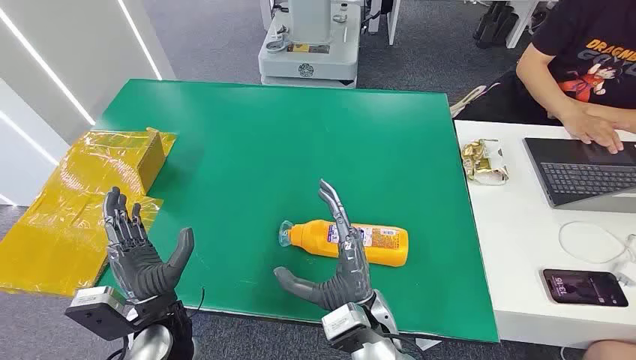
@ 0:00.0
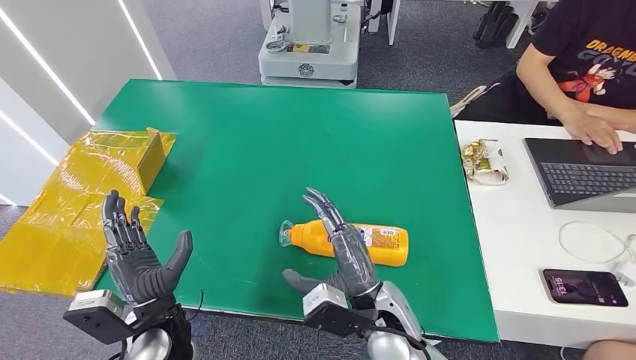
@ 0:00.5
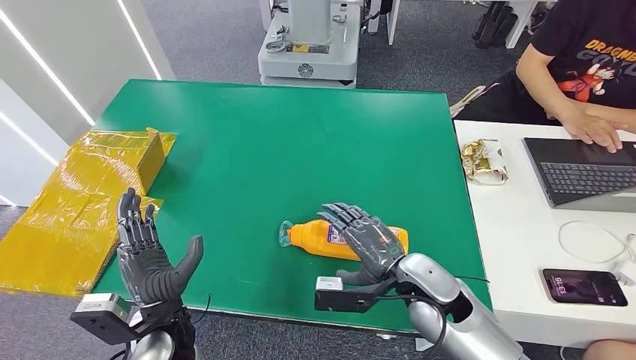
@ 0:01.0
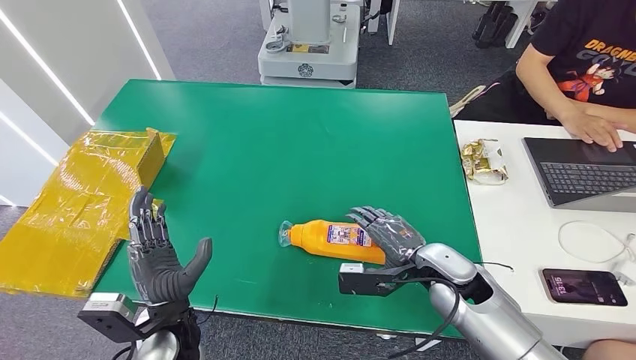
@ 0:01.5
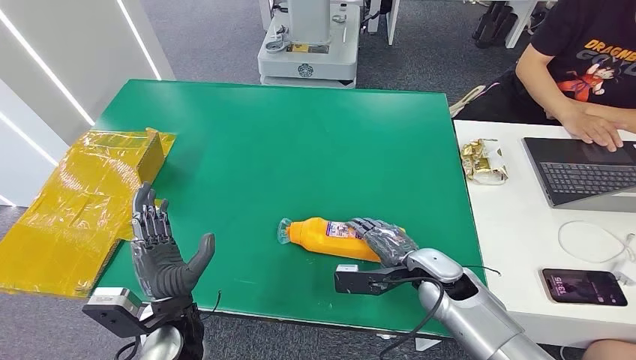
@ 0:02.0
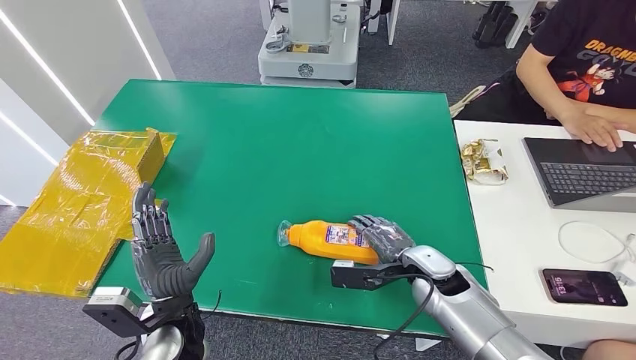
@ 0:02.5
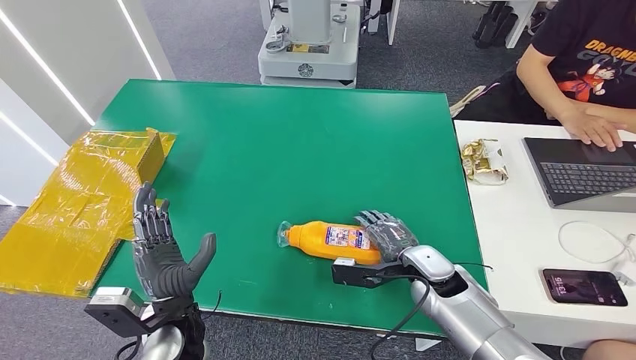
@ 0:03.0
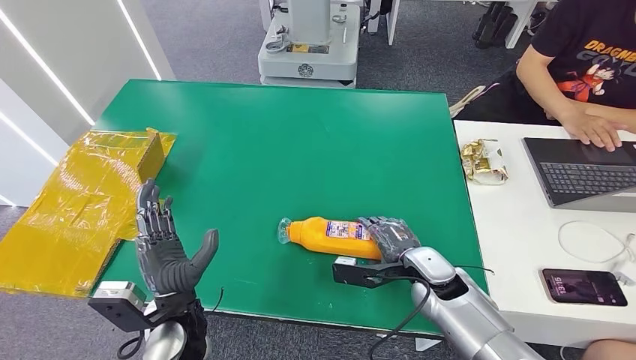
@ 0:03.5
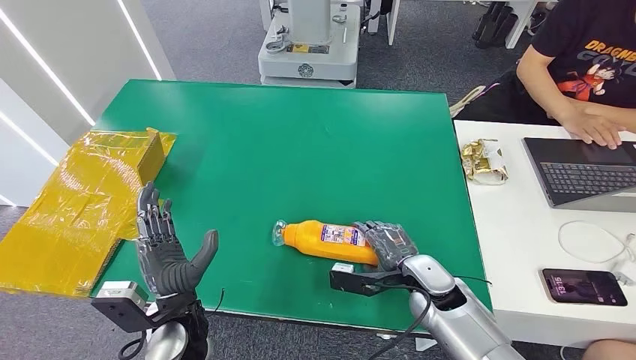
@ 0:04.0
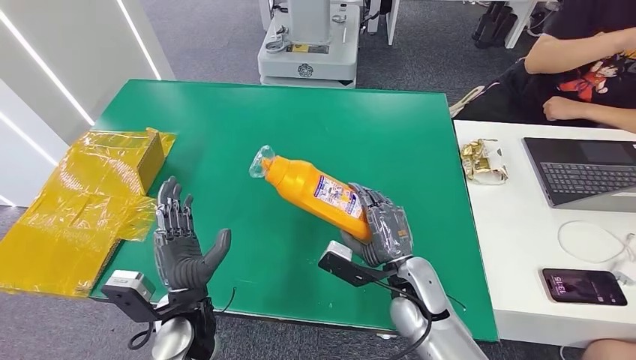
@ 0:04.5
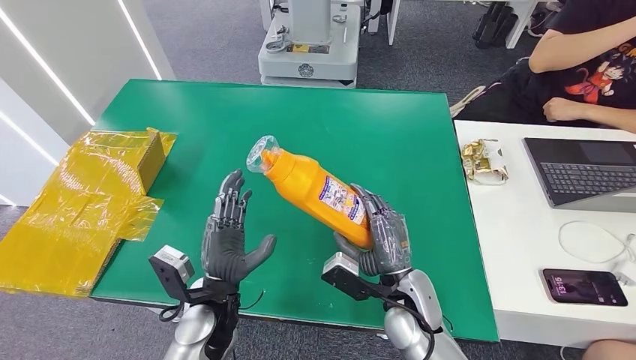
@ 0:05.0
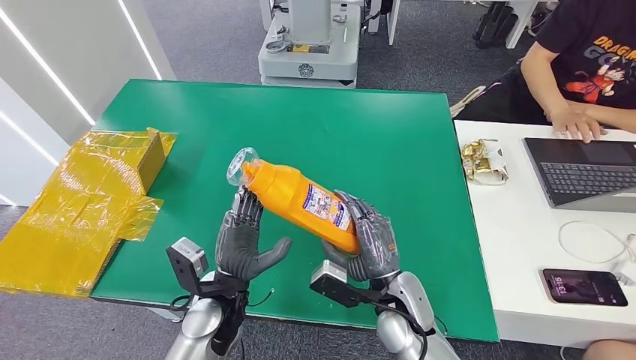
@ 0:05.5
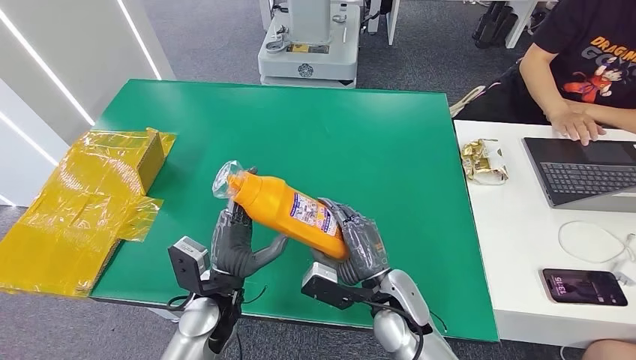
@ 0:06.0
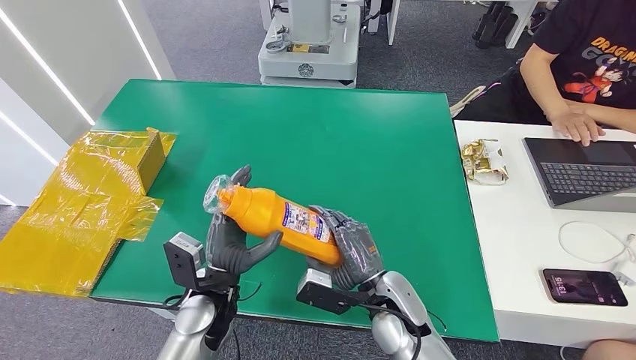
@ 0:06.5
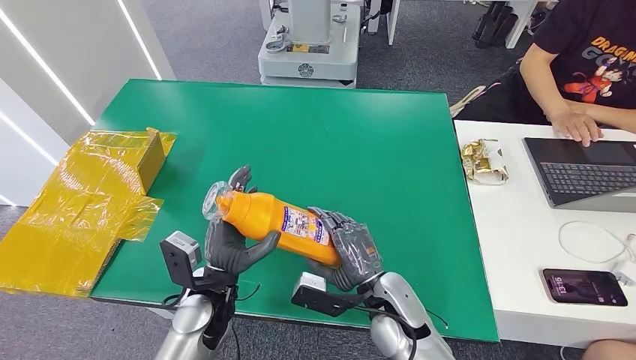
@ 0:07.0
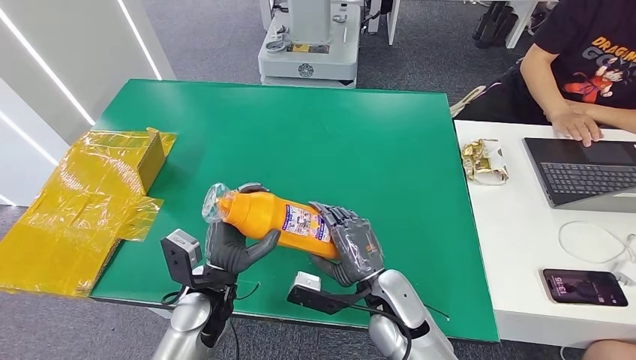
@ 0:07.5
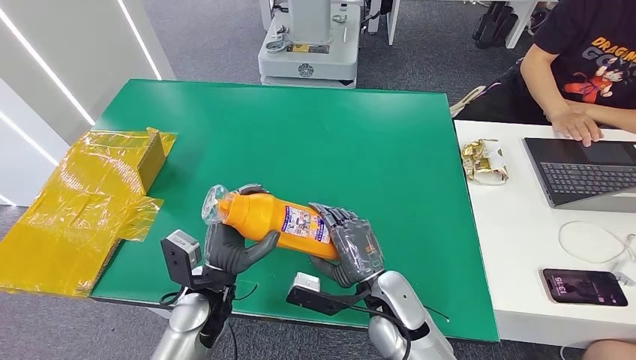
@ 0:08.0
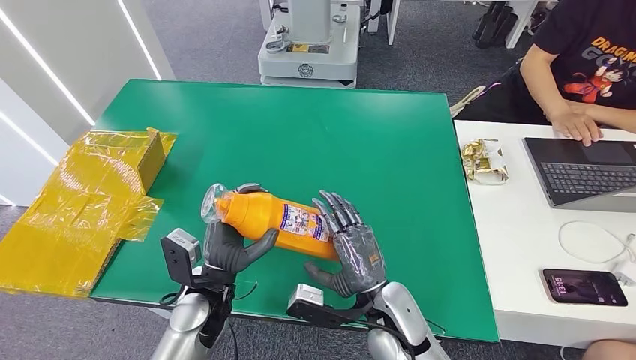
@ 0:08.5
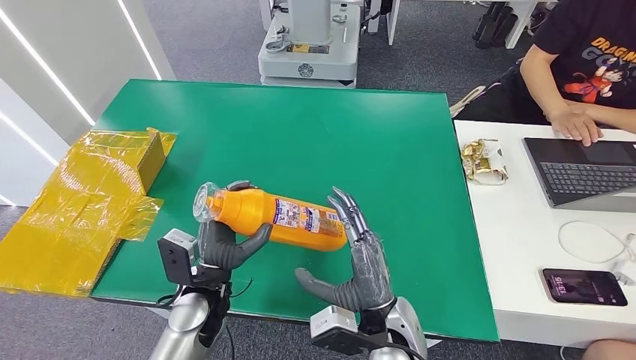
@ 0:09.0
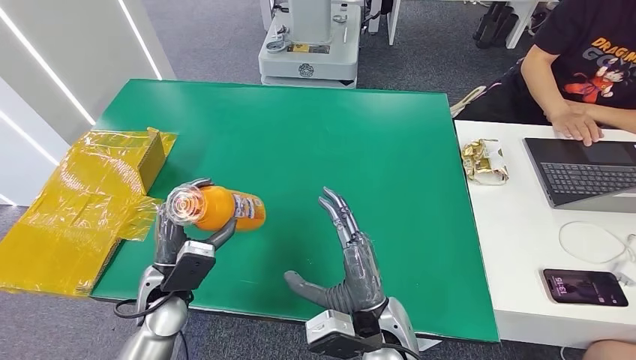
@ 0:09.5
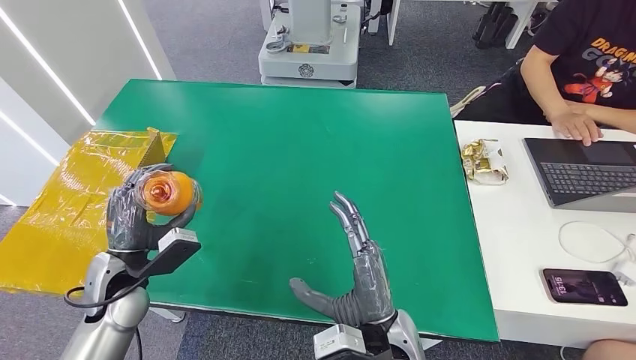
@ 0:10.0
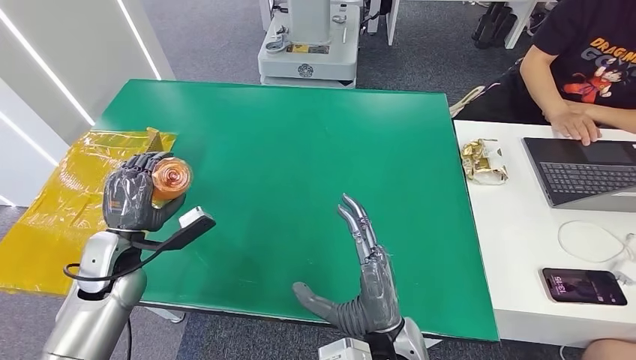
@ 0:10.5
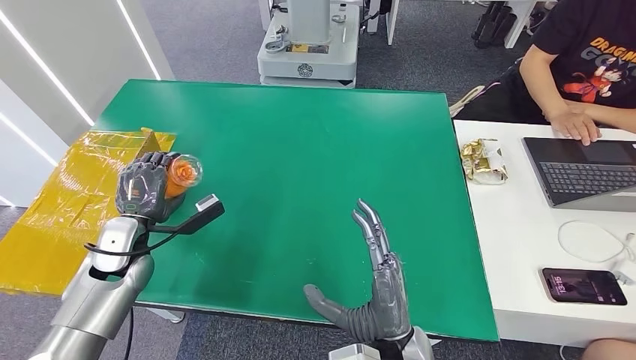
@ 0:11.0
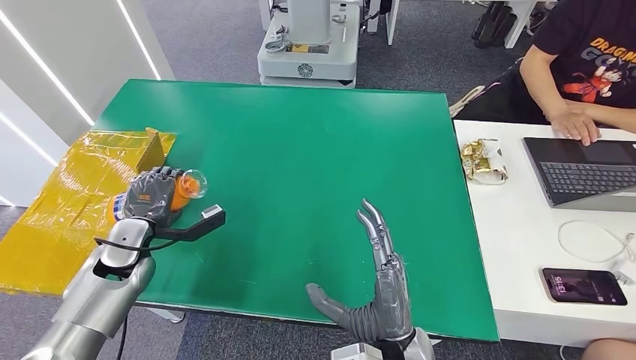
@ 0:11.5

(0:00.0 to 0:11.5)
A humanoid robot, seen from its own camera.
Step, 0:00.0 - 0:05.0: Pick up the bottle from the table.
0:02.0 - 0:04.0: There are only small adjustments of the hands.
0:04.0 - 0:06.0: The left hand moves roughly 5 cm. Meanwhile the right hand heads to the left, covering roughly 5 cm.
0:06.0 - 0:07.5: The hands move only a little.
0:07.5 - 0:09.5: The left hand is displaced to the left by about 10 cm. The right hand goes about 5 cm backward.
0:09.5 - 0:11.5: The left hand goes about 15 cm to the left and forward.

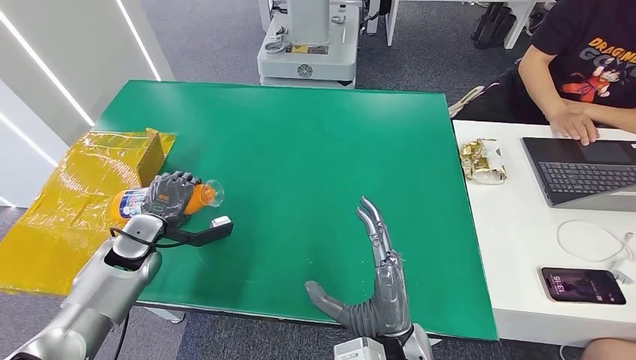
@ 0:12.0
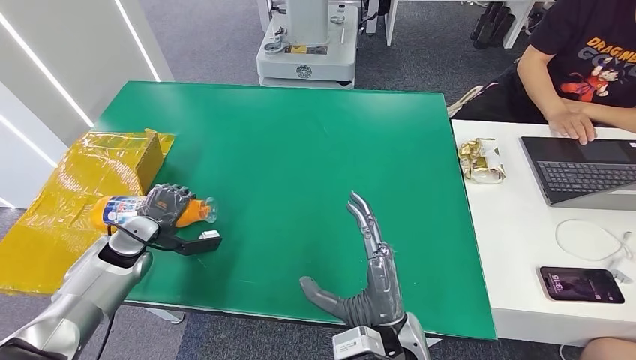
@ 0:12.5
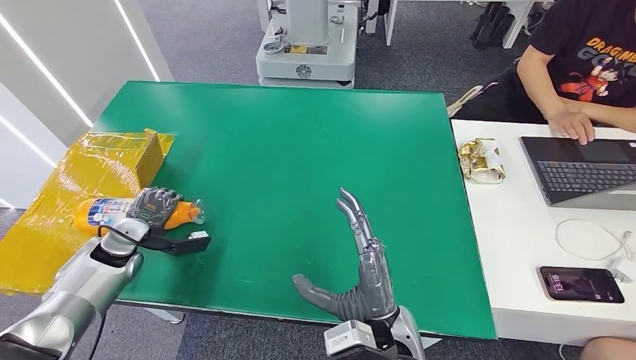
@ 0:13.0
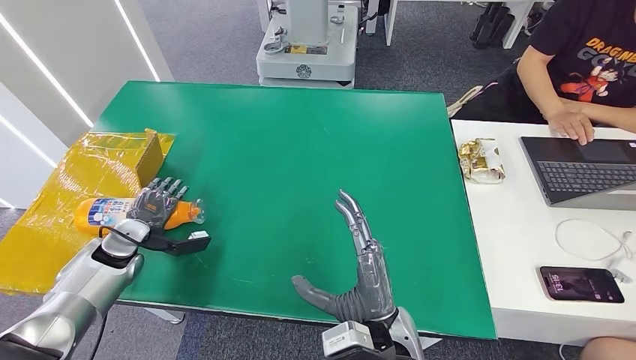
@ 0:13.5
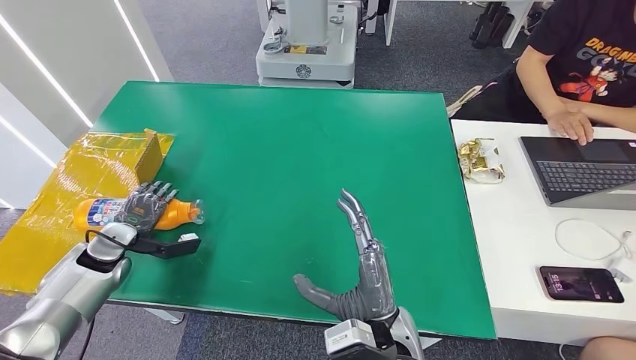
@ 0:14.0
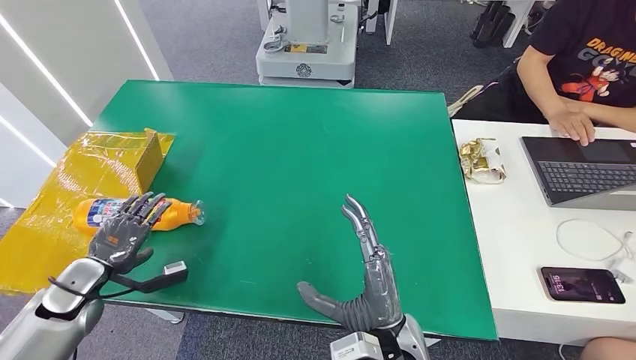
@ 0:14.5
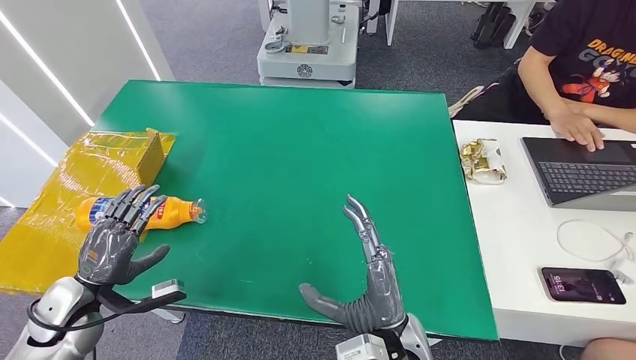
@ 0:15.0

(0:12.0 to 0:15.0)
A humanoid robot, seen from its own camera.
Step, 0:12.0 - 0:15.0: Turn the bottle to the front side.
0:12.0 - 0:13.5: The left hand shifts some 5 cm to the left.
0:13.5 - 0:15.0: The left hand shifts roughly 15 cm backward.
